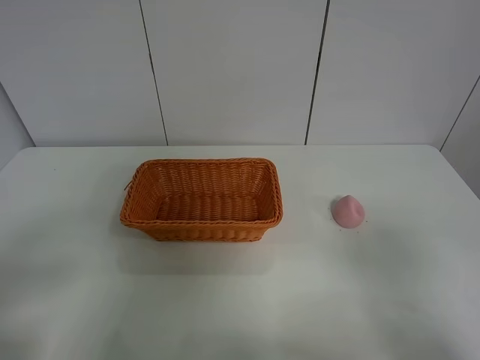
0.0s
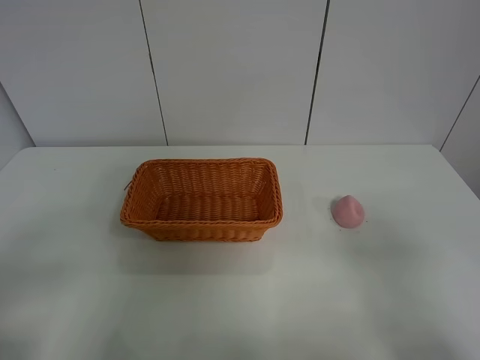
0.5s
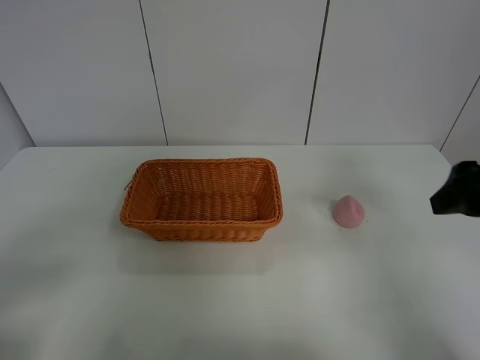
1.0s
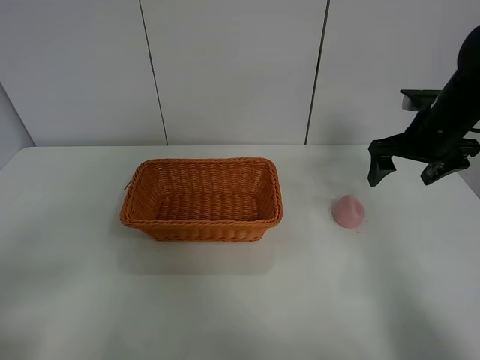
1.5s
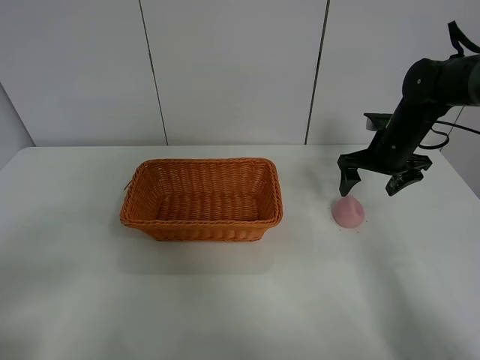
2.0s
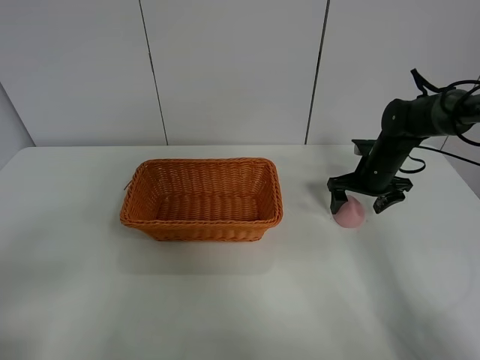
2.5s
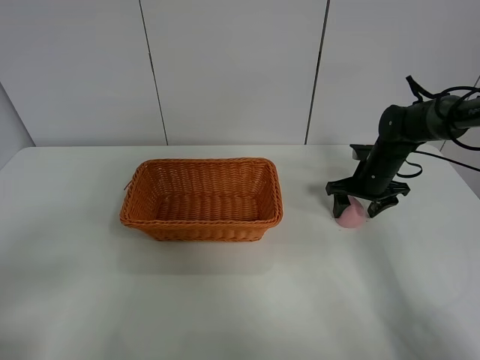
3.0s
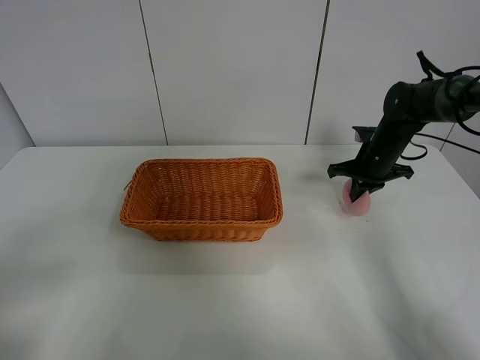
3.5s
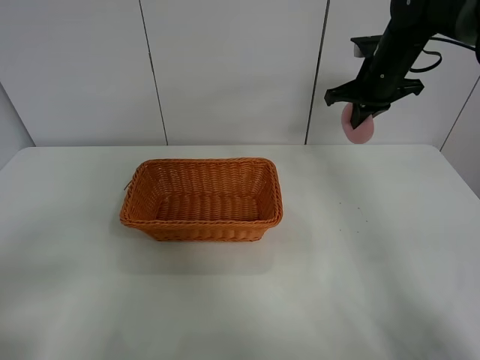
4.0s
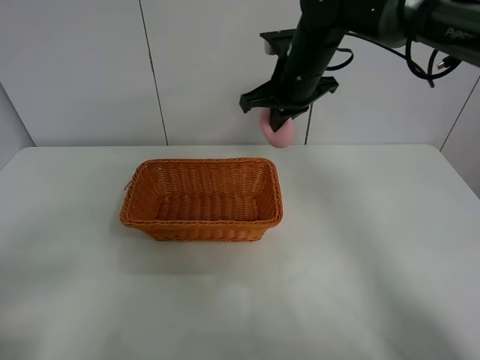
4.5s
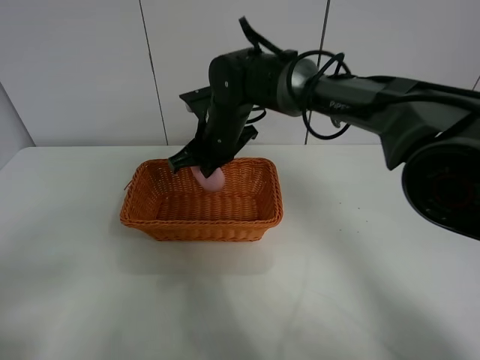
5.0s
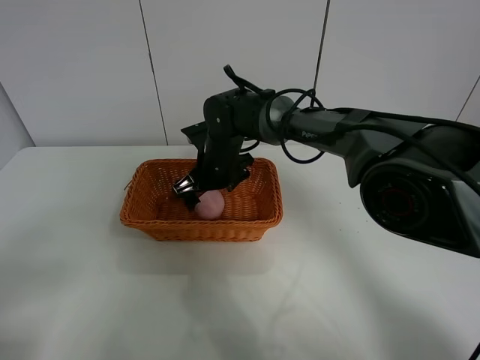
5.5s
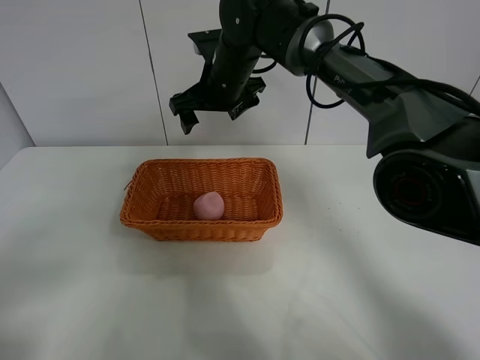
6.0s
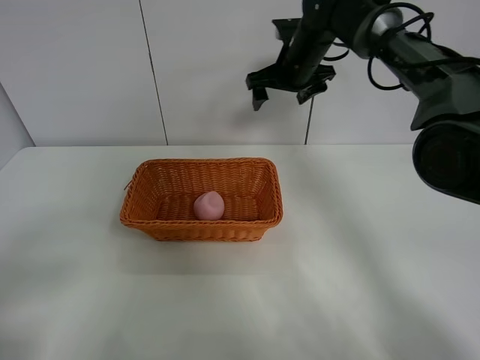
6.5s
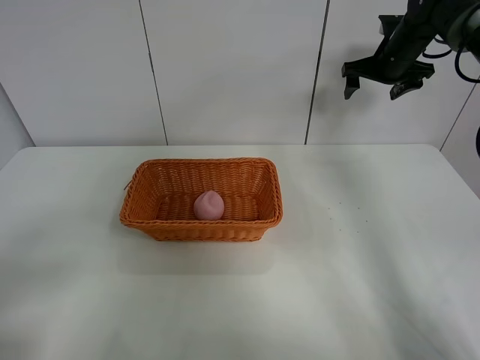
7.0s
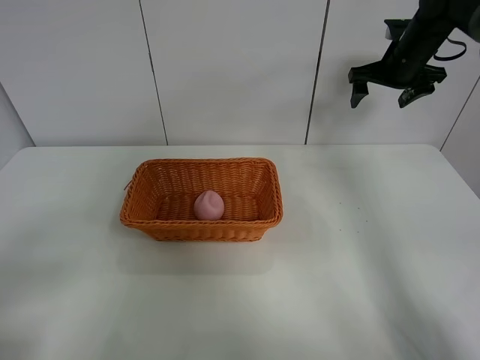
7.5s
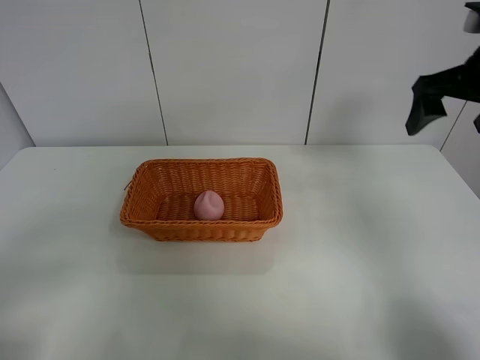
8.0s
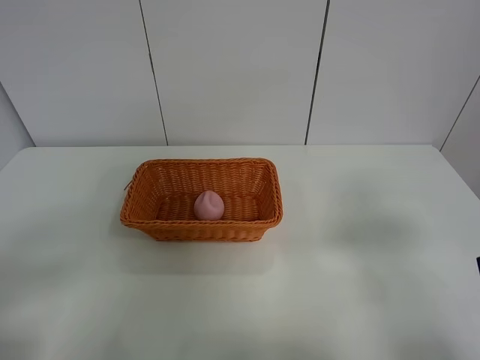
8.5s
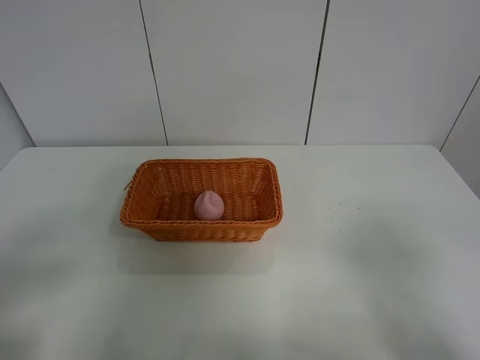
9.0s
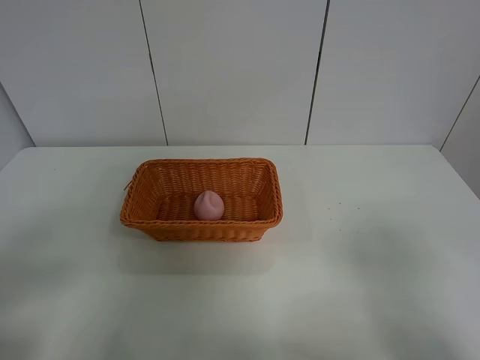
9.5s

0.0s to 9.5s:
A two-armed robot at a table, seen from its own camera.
Step, 0.0s to 3.0s: Grasp the peach with right gripper.
Step, 3.5s to 5.5s: Place the peach in the basket with right gripper.
0.0s to 2.0s: The right gripper is displaced forward by roughly 40 cm.
2.0s to 4.0s: The right gripper is displaced upward by roughly 10 cm, and closes.
4.0s to 5.5s: The right gripper moves to the left and downward, approximately 30 cm, and opens up.
5.5s to 7.5s: The right gripper moves to the right and upward, roughly 35 cm.
7.5s to 9.5s: The right gripper goes approximately 50 cm backward.

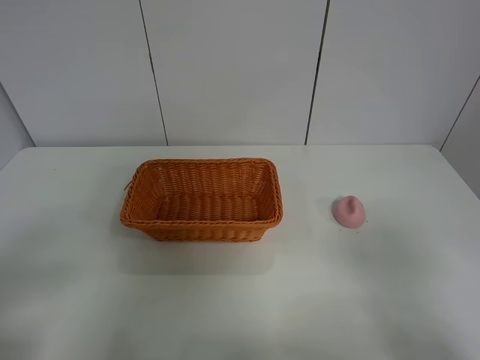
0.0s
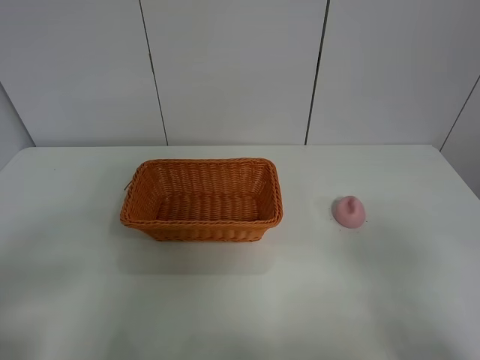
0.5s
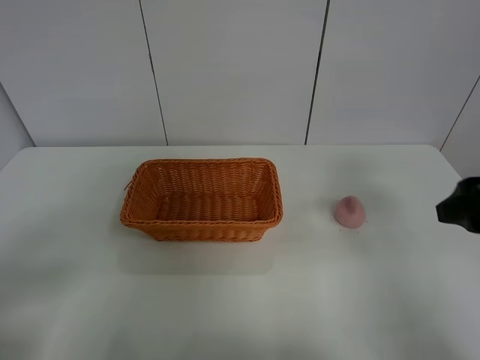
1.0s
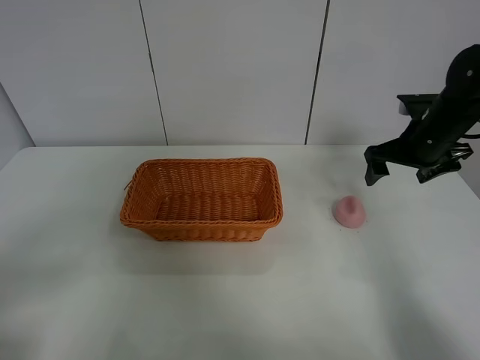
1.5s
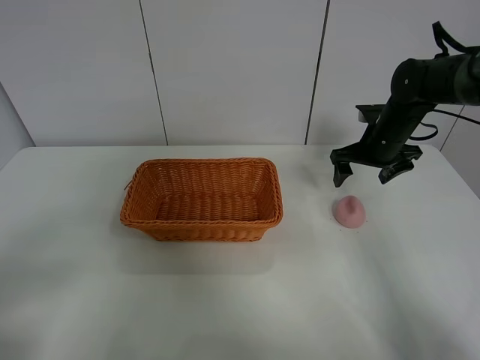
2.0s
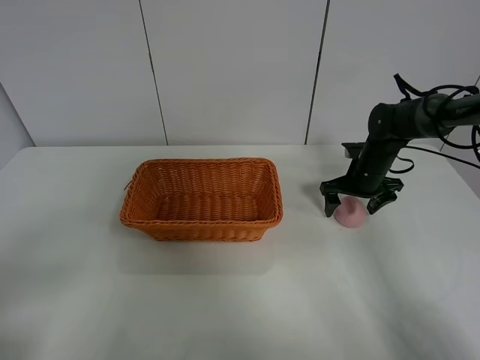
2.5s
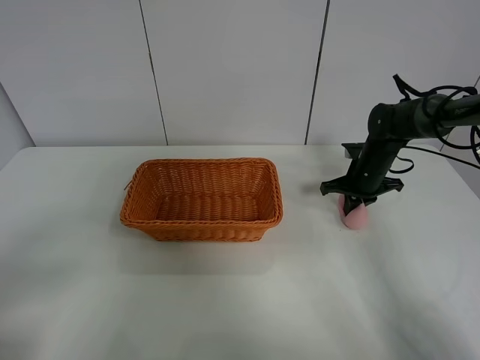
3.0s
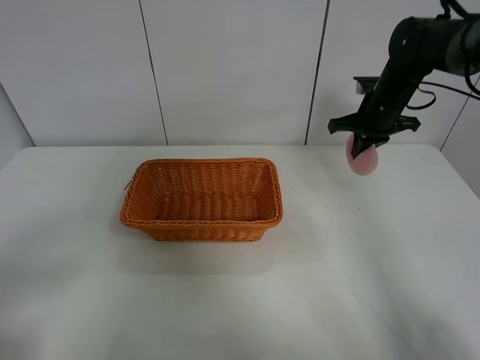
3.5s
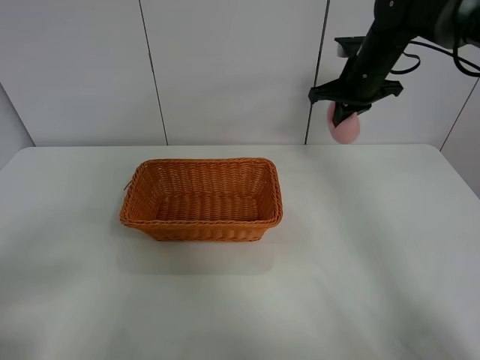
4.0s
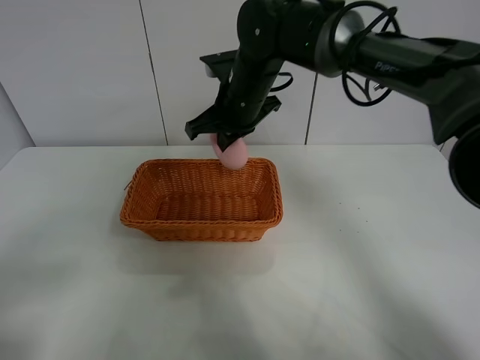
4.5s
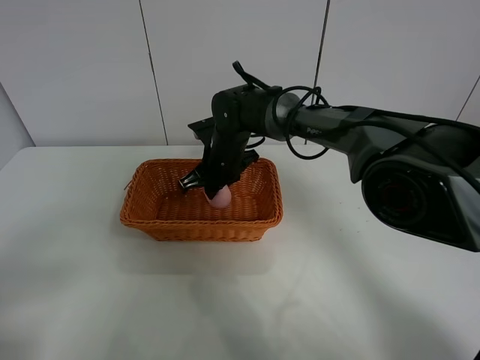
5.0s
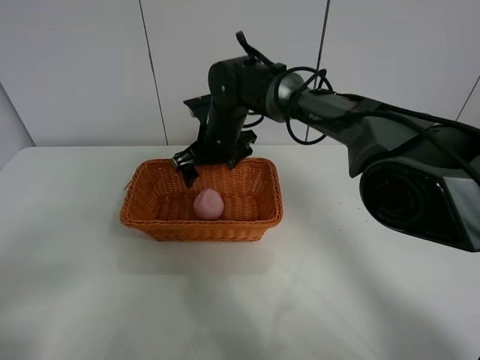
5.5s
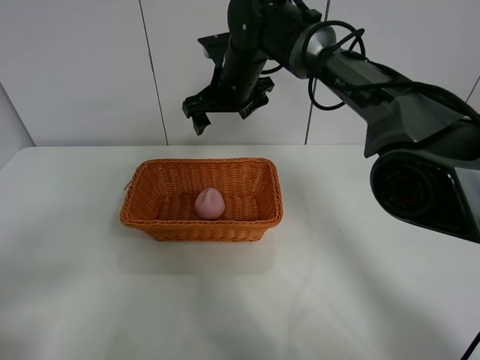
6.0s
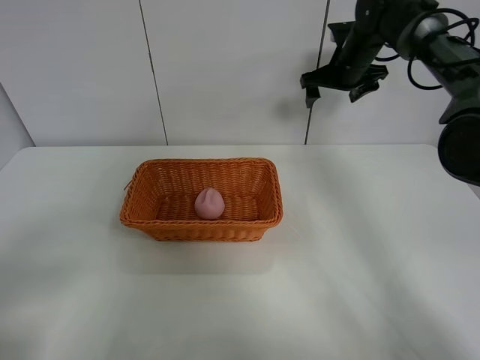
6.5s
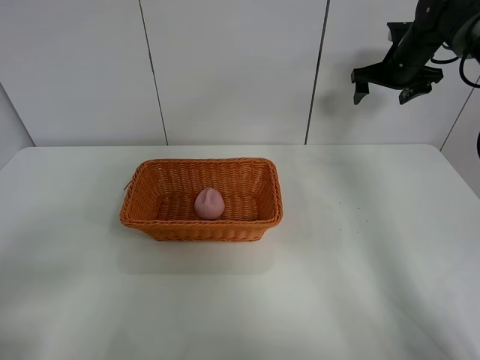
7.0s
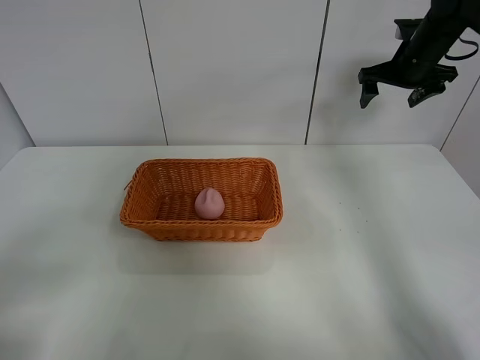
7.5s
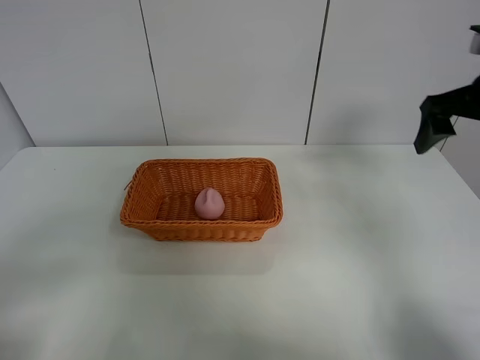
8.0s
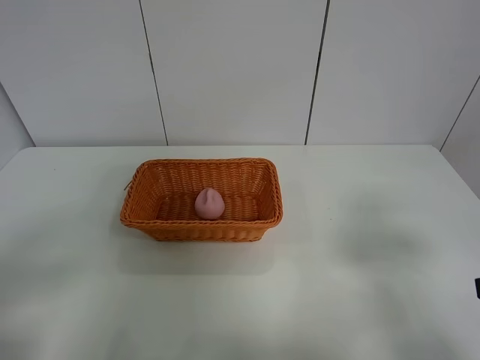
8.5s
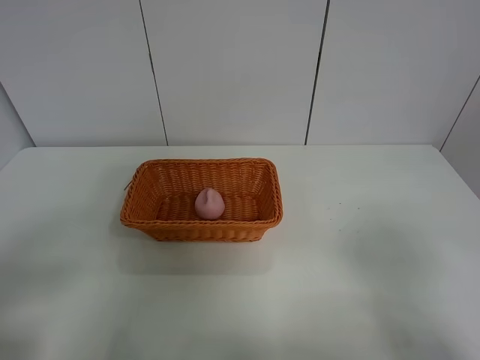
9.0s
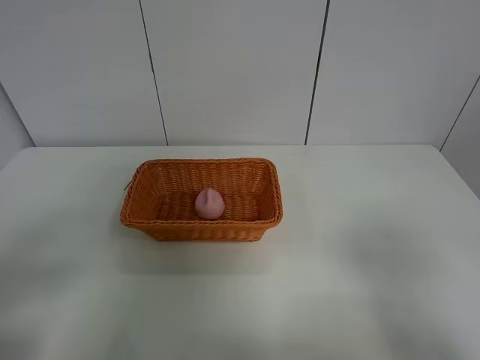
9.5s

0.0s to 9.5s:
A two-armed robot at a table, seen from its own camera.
Step, 0.0s to 3.0s: Grasp the peach with right gripper.
Step, 3.5s to 6.0s: Place the peach in the basket with right gripper.
0.0s to 2.0s: The right gripper is displaced forward by some 40 cm.
2.0s to 4.0s: The right gripper goes approximately 10 cm upward and to the left, and closes up.
4.0s to 5.5s: The right gripper shifts about 20 cm to the left, and opens up.
5.5s to 7.5s: The right gripper heads to the right, covering roughly 30 cm.
7.5s to 9.5s: The right gripper heads backward, covering approximately 50 cm.
